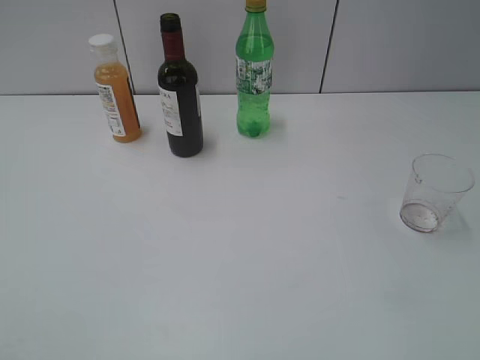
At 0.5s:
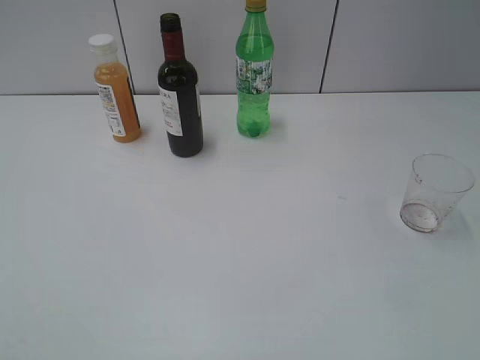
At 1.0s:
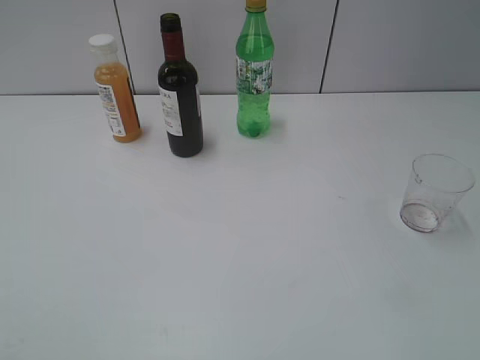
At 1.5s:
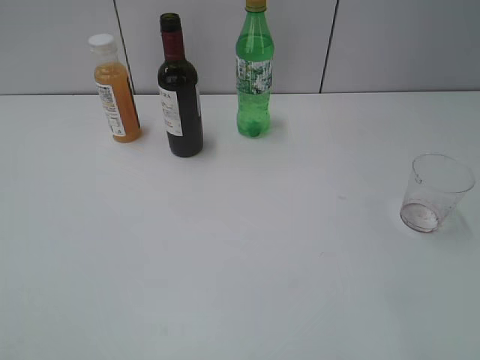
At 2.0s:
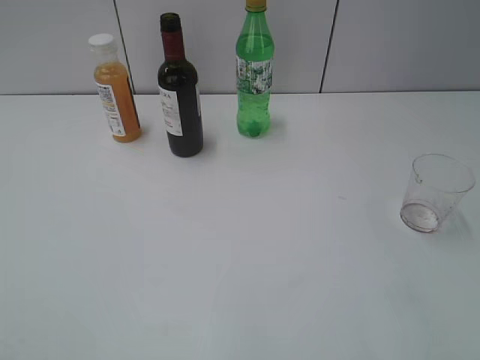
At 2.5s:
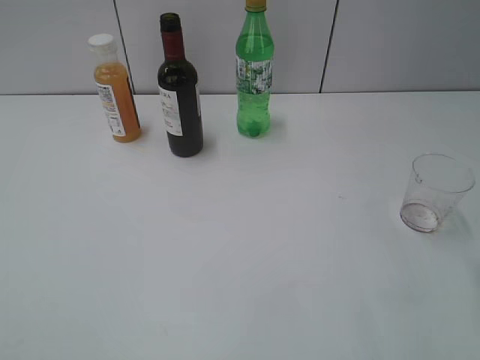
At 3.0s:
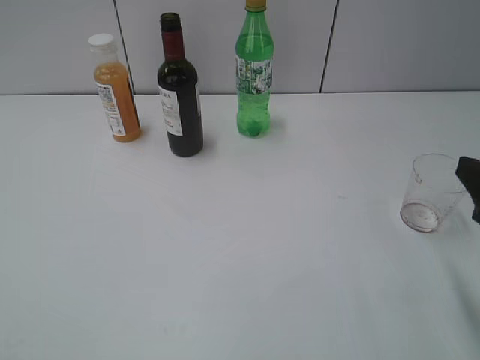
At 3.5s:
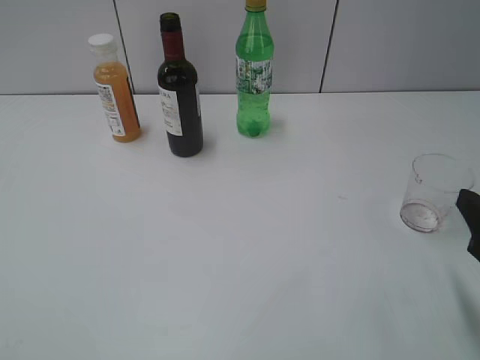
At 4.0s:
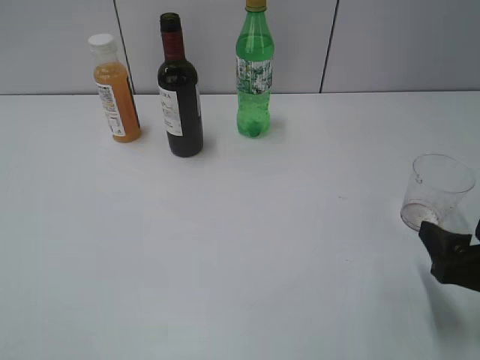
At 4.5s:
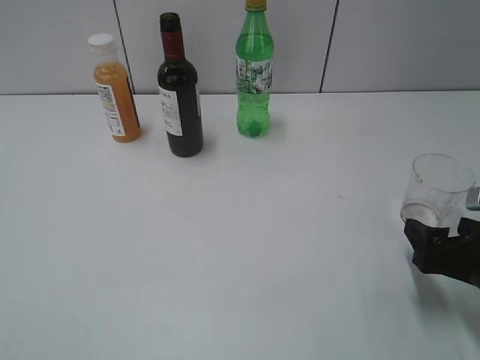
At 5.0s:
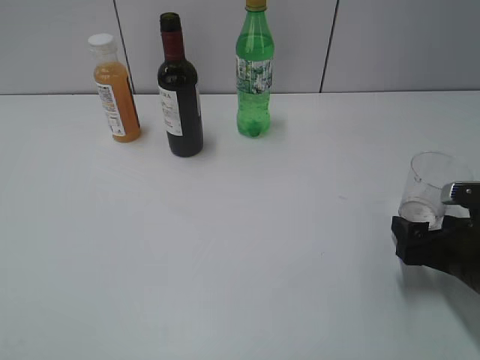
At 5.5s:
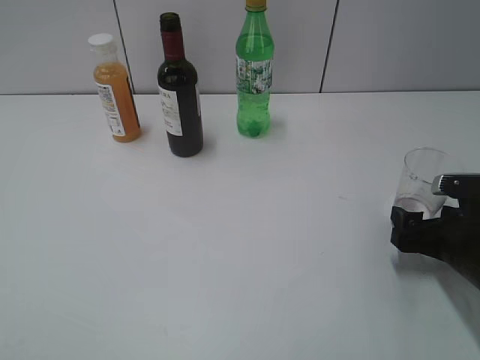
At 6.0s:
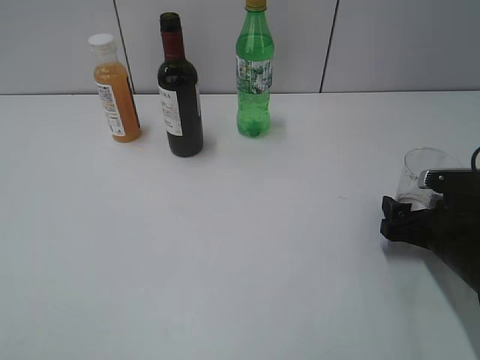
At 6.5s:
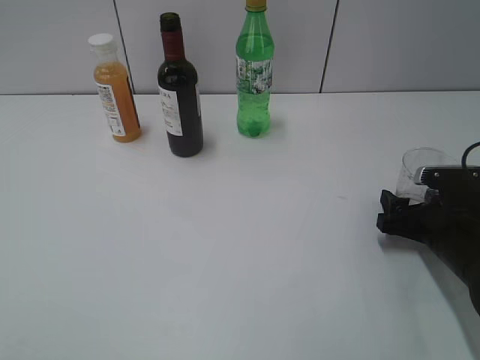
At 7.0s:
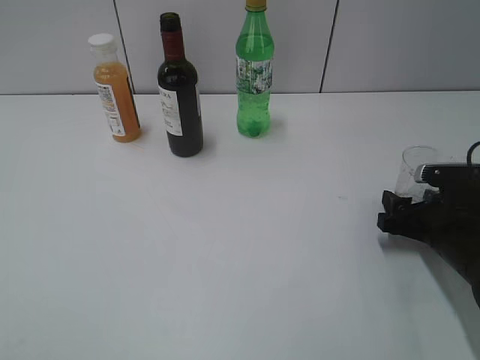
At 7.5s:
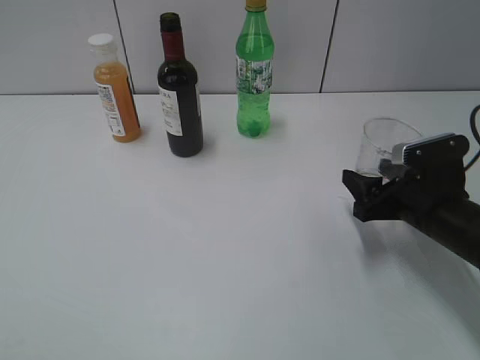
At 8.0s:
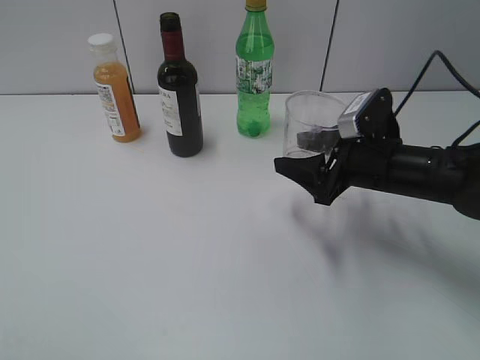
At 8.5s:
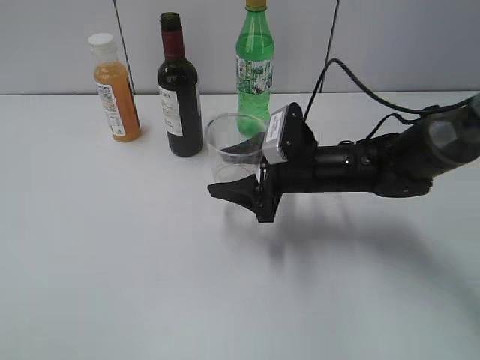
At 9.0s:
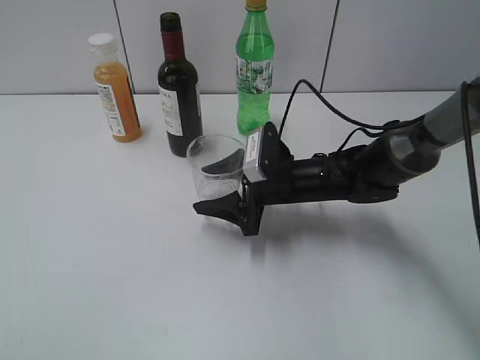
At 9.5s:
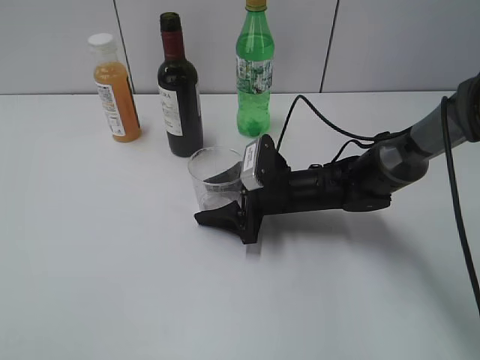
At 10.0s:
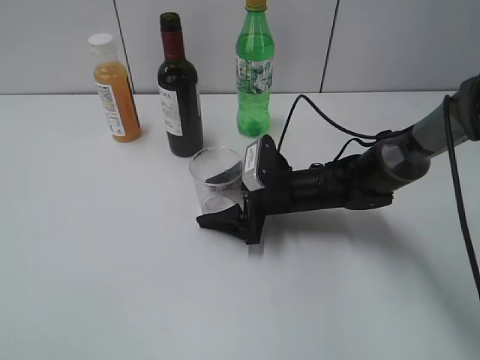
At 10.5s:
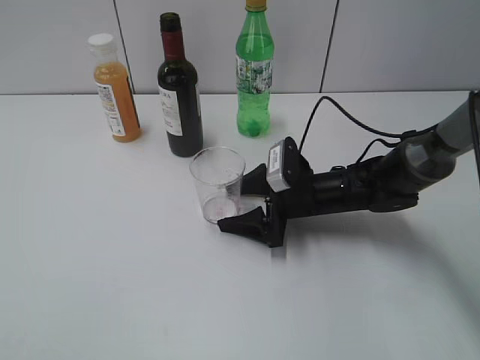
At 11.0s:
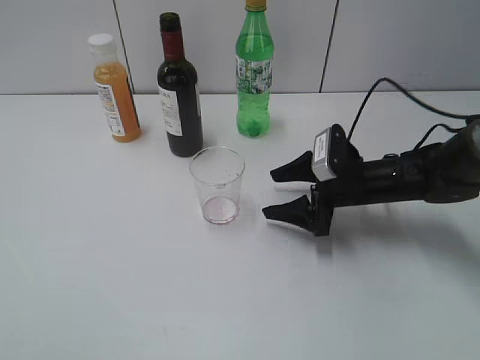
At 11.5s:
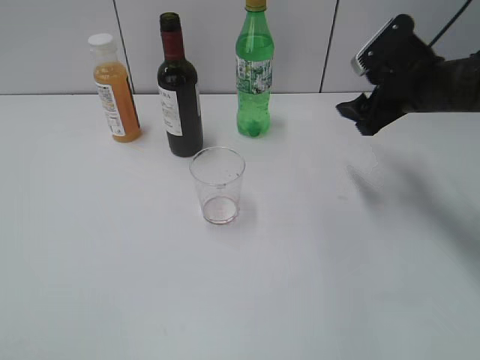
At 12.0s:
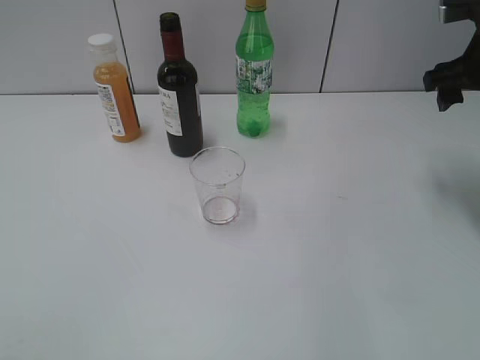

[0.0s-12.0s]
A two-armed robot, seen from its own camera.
Step, 1.0s to 6.5s: Grasp the transparent cup with right gripper.
Step, 7.0s to 10.5s: Place the transparent cup on the table with right gripper.
2.0s to 4.0s: The right gripper travels downward by approximately 15 cm, and opens up.
4.0s to 6.0s: The right gripper moves forward and downward, about 10 cm.
6.0s to 8.0s: The right gripper is displaced to the left, upward and forward by about 15 cm, and closes its fingers.
8.0s to 10.0s: The right gripper travels to the left and downward by some 15 cm, and opens.
10.0s to 12.0s: The right gripper heads upward and to the right, covering roughly 30 cm.

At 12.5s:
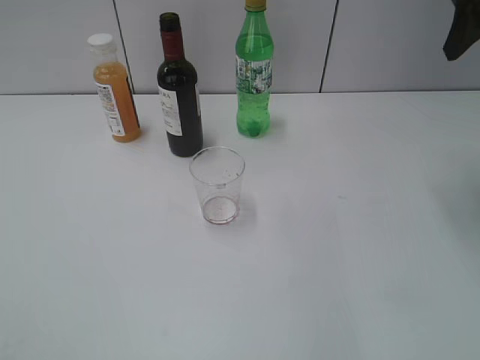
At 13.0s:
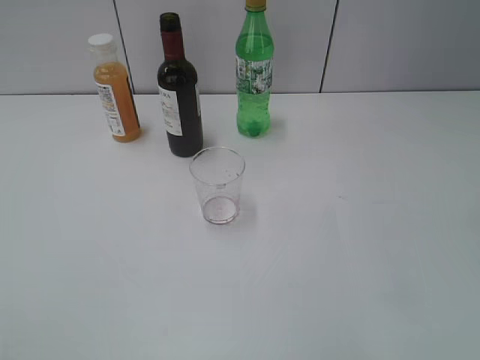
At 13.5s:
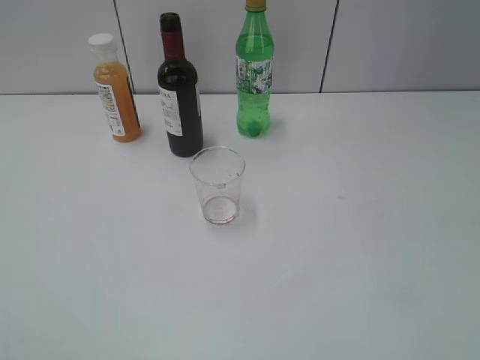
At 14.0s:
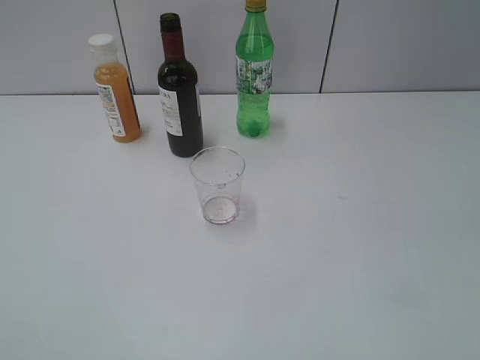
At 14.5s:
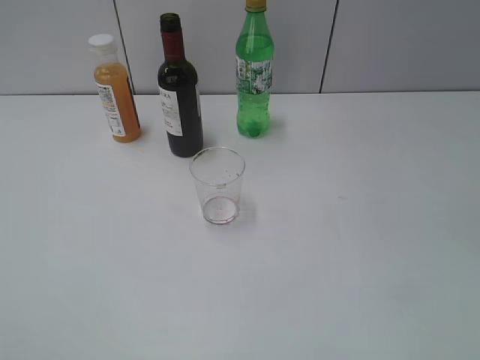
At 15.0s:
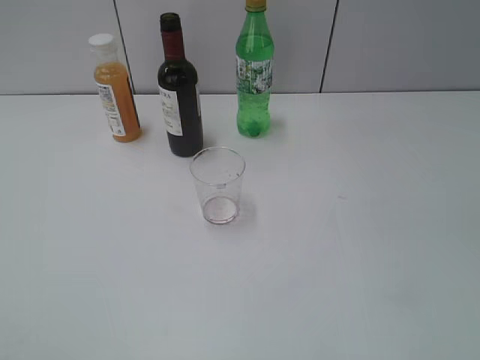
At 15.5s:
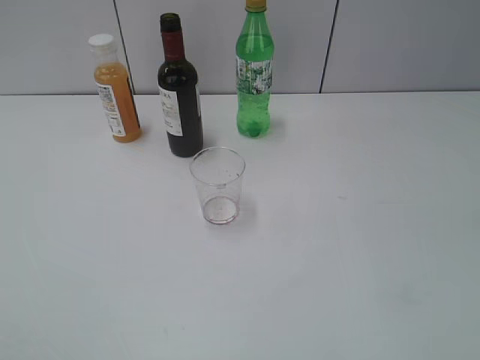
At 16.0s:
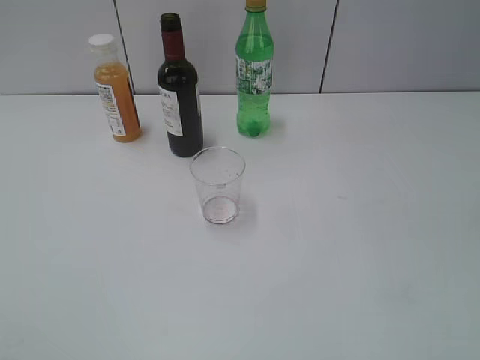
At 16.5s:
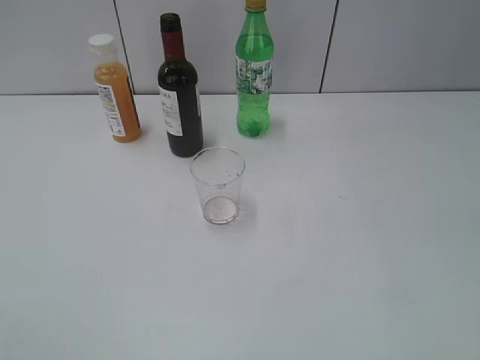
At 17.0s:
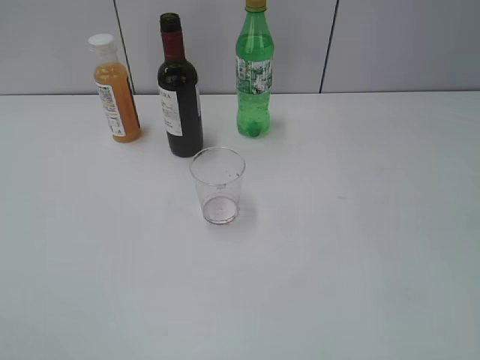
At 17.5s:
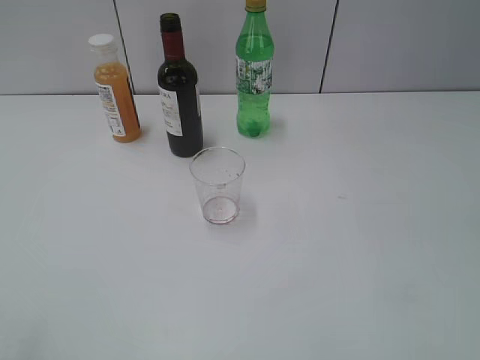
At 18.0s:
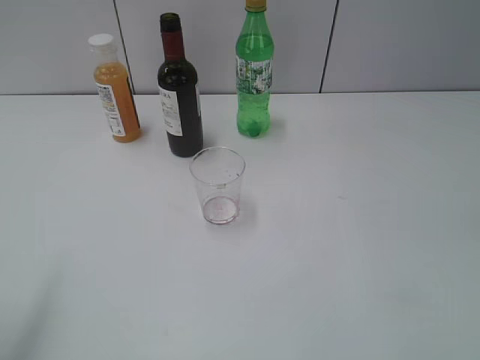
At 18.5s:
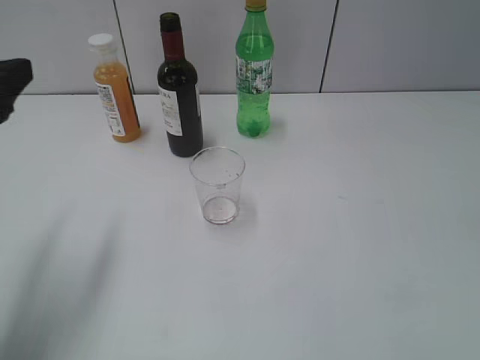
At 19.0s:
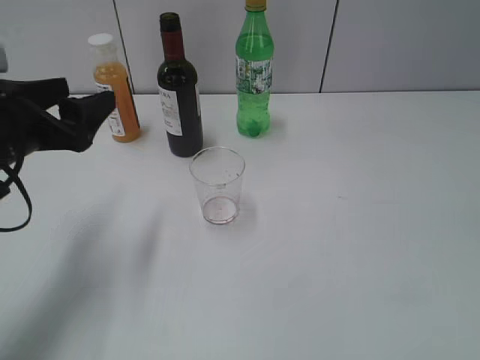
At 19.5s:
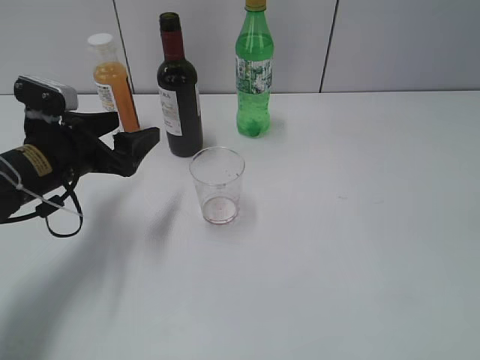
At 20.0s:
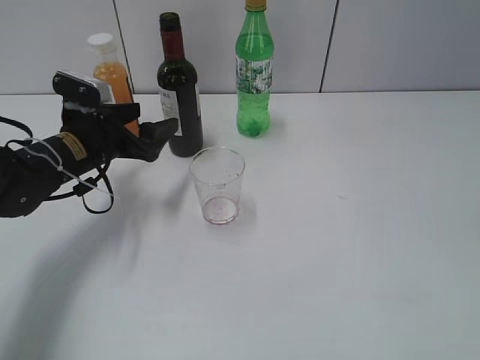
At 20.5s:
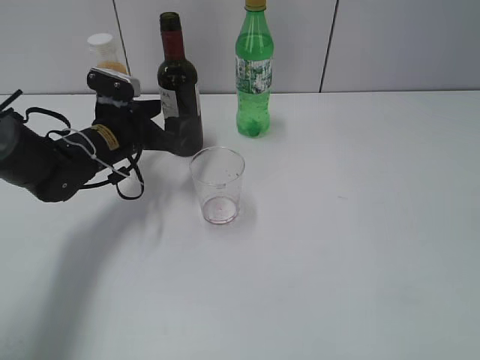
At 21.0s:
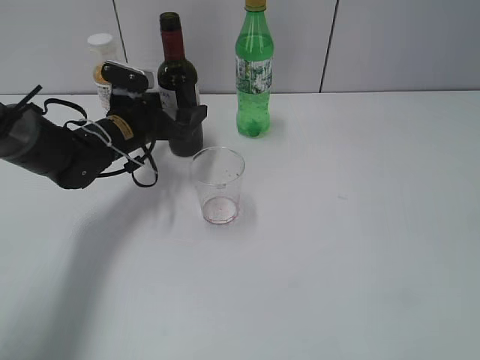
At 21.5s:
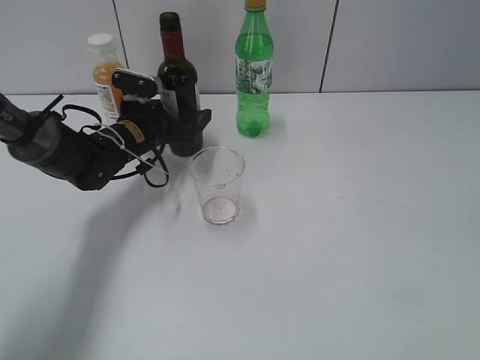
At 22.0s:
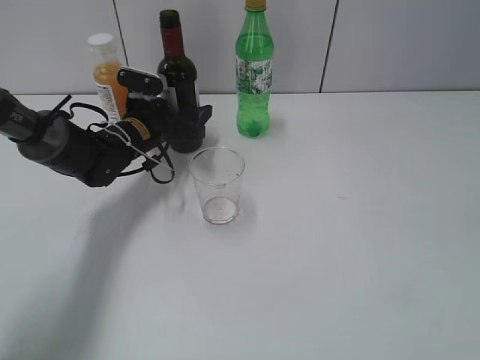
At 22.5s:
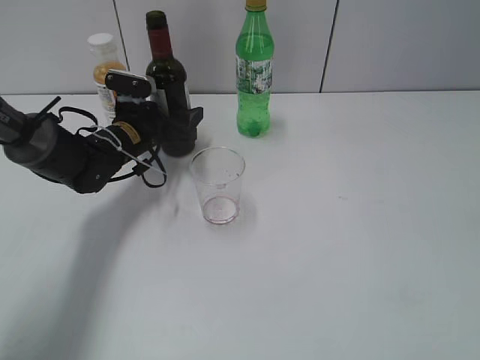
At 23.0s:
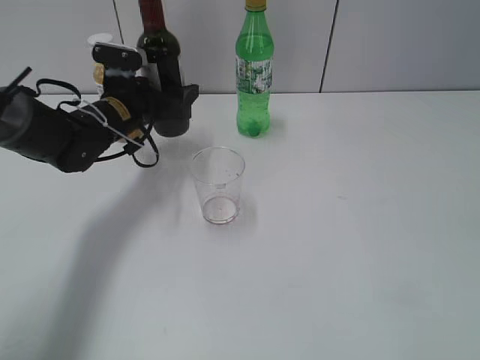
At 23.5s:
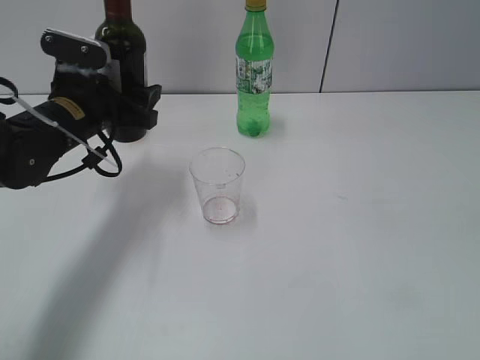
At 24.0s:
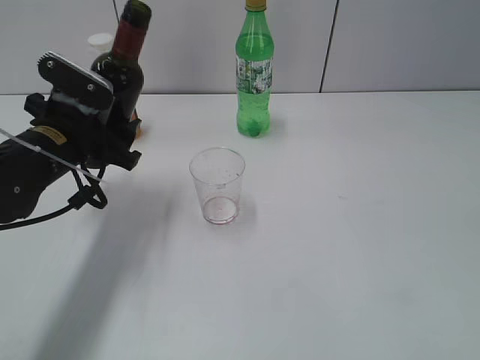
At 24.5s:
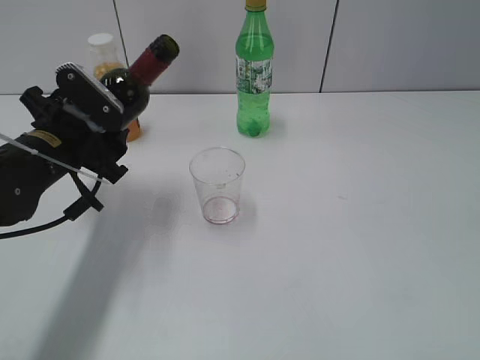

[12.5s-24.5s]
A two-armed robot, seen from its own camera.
Step, 12.5s to 22.5s: Grasp the bottle with red wine with left gripper.
12.5s to 14.5s: The right gripper heads backward, covering about 35 cm.
14.5s to 16.5s: The two grippers keep their place.
16.5s to 18.5s: The left gripper moves forward, about 25 cm, and opens its fingers.
18.5s to 20.5s: The left gripper goes about 25 cm forward, downward and to the right.
20.5s to 22.5s: The grippers stay close to where they were, moving slightly.
22.5s to 24.5s: The left gripper shifts about 15 cm backward and upward.

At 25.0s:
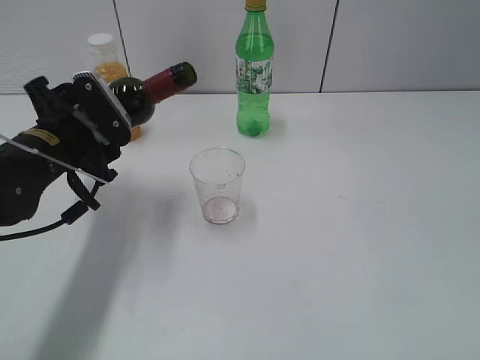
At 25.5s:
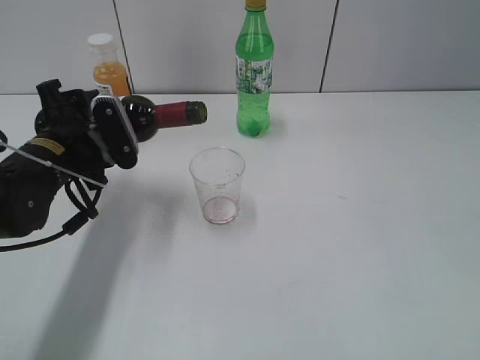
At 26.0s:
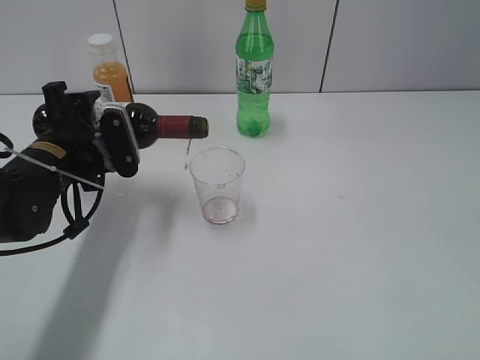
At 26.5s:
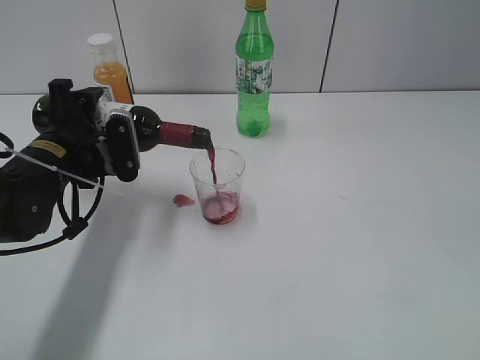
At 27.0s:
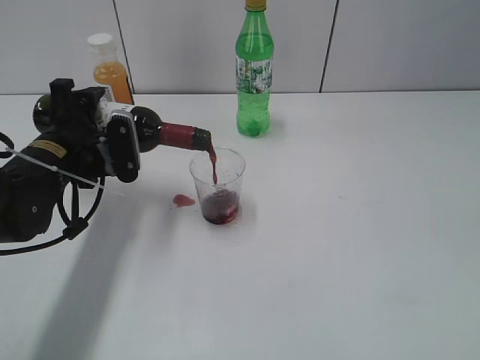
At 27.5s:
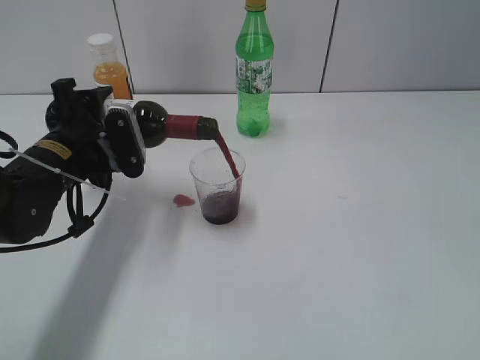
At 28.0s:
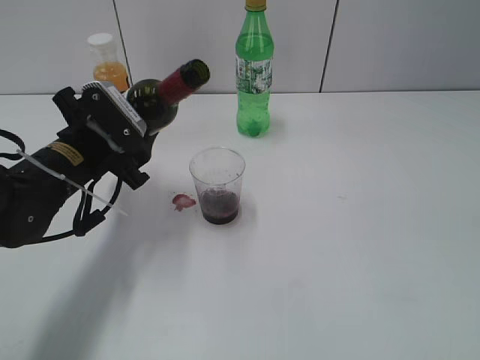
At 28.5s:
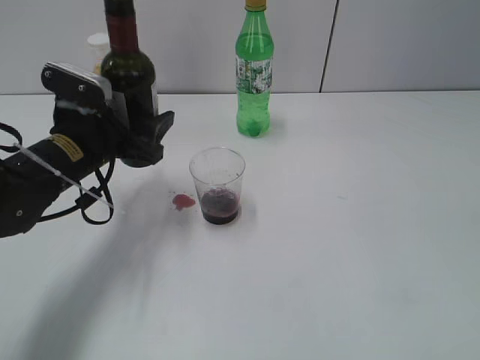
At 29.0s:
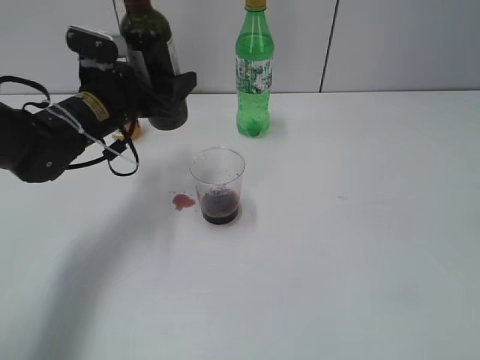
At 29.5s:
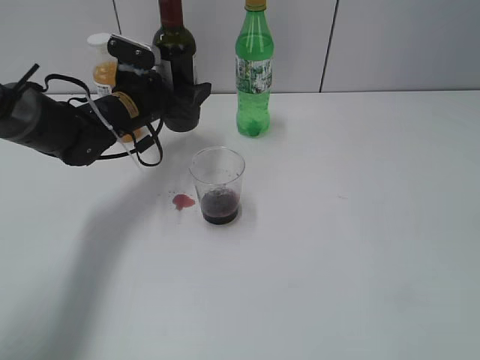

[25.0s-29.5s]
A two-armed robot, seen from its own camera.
Step, 25.0s to 27.5s: Pour the red wine from bottle to cup with left gripper.
27.0s to 29.5s: The left gripper is displaced forward and to the right by some 15 cm.
